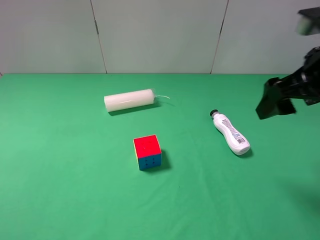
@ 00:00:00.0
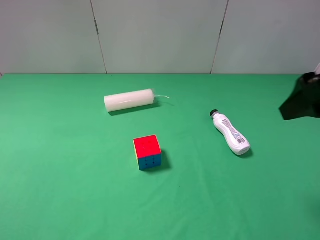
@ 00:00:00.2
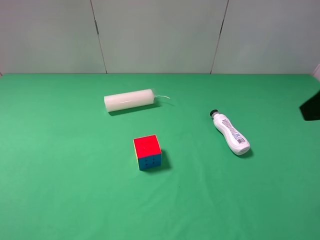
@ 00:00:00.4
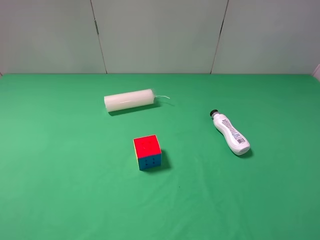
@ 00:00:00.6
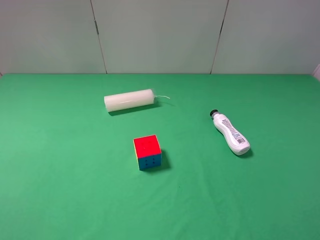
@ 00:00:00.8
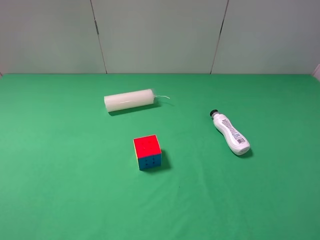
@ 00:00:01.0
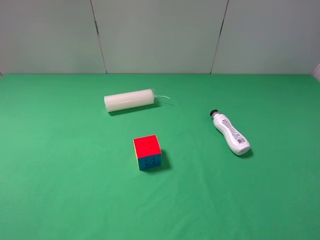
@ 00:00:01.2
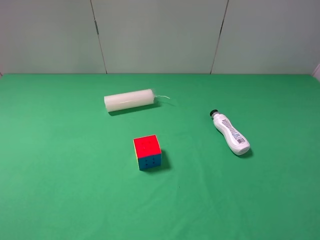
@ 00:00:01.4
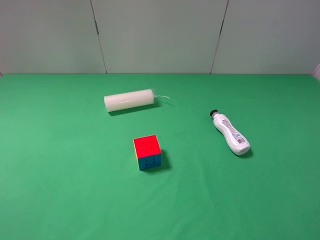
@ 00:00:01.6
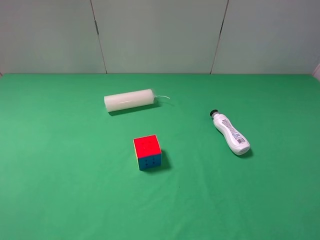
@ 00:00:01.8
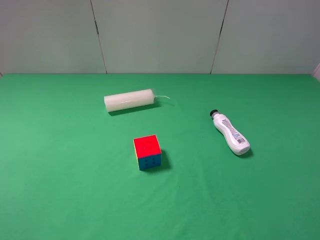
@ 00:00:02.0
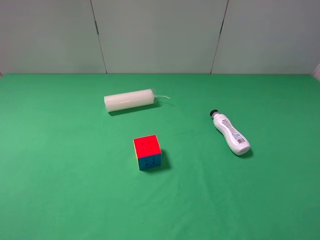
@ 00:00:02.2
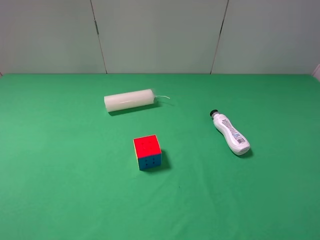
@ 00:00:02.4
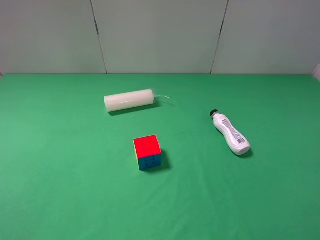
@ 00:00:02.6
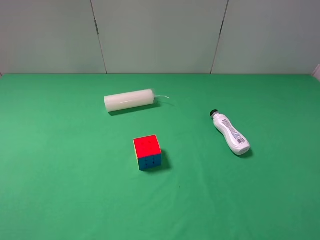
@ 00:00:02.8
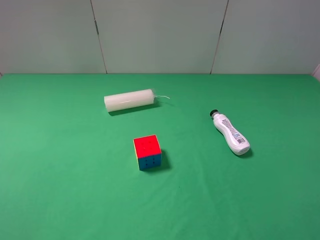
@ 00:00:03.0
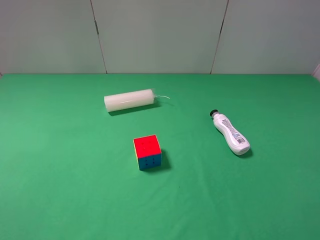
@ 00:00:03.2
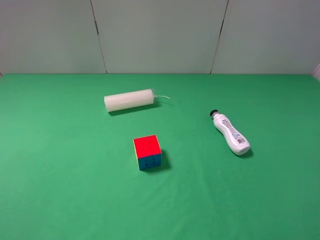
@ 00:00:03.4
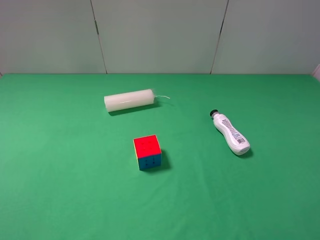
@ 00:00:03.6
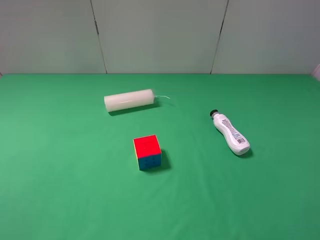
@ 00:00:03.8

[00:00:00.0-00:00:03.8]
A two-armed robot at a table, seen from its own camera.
Task of the whole recording: use the left gripper to pick up the item and transfer it from the left gripper to the right gripper.
00:00:00.0 to 00:00:01.2: The right gripper is displaced backward by approximately 20 cm.
00:00:02.6 to 00:00:03.8: Both grippers stay about where they are.
